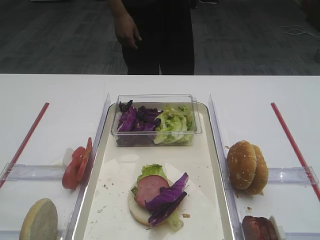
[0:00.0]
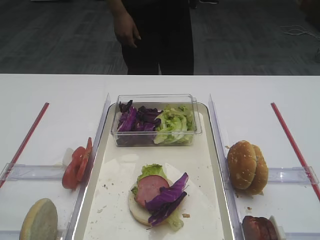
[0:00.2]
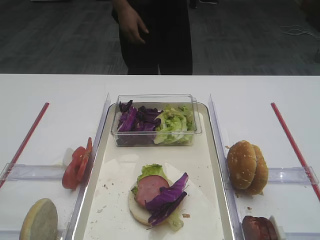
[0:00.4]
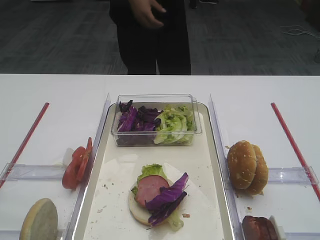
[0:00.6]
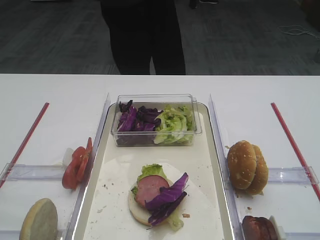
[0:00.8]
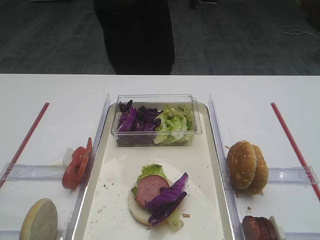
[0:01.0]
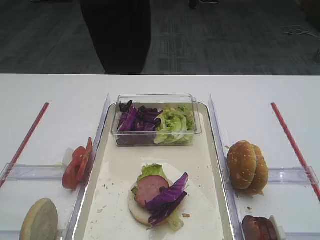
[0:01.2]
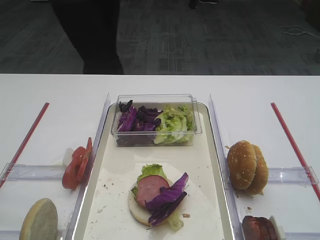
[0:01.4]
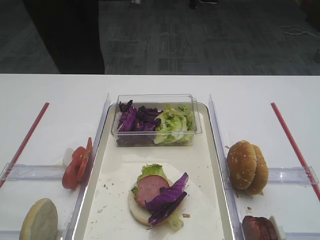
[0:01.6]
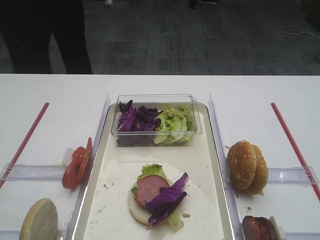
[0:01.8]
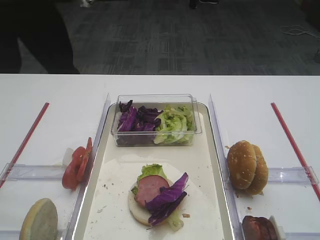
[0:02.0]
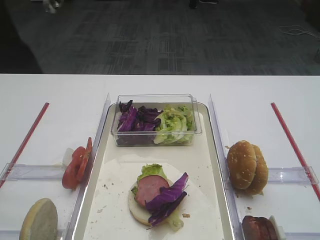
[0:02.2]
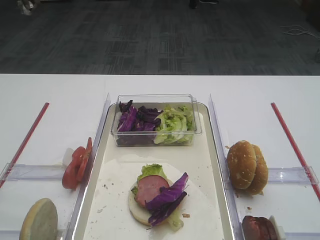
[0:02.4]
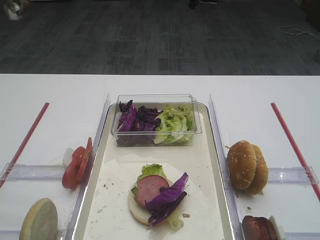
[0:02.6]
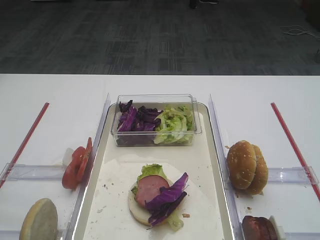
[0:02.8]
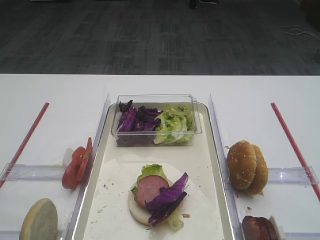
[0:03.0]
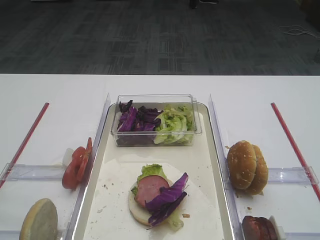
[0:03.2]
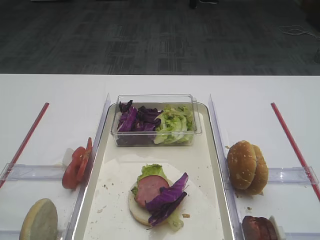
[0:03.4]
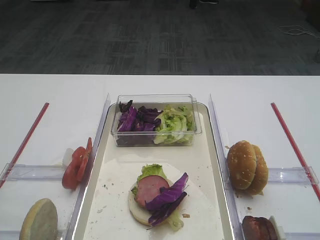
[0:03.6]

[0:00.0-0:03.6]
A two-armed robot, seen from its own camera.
0:00.0 to 0:03.6: Neither gripper changes place.

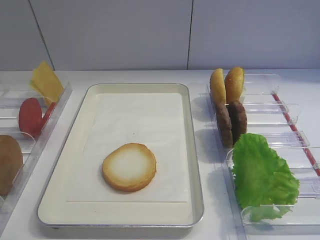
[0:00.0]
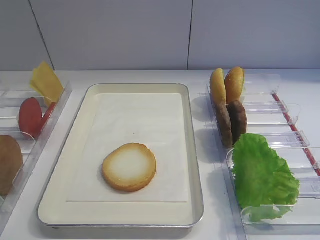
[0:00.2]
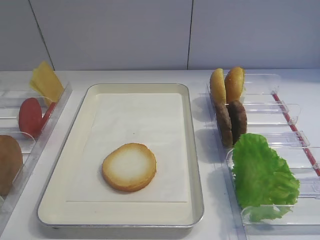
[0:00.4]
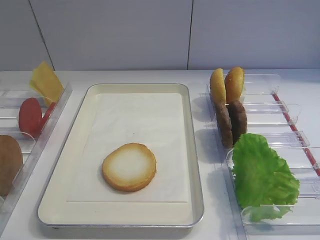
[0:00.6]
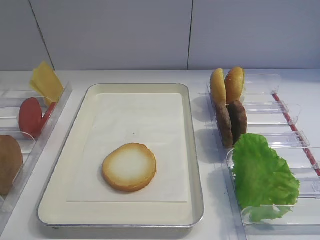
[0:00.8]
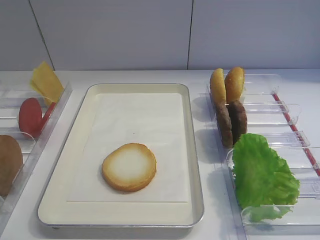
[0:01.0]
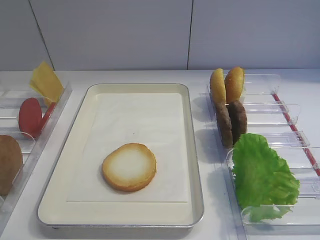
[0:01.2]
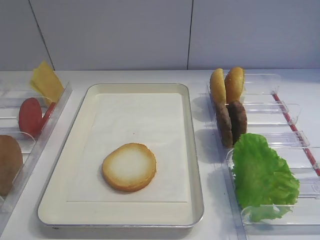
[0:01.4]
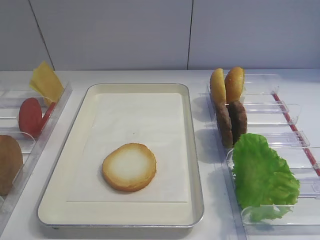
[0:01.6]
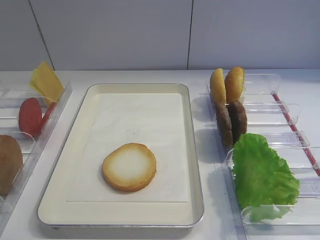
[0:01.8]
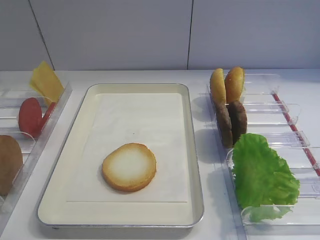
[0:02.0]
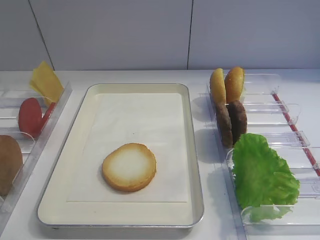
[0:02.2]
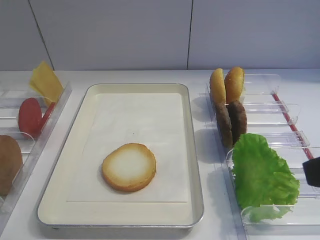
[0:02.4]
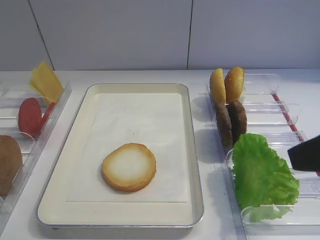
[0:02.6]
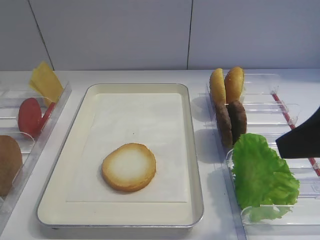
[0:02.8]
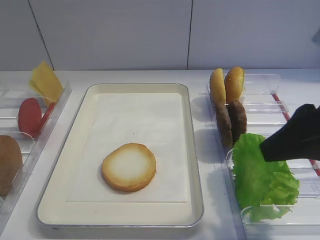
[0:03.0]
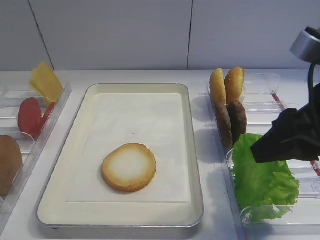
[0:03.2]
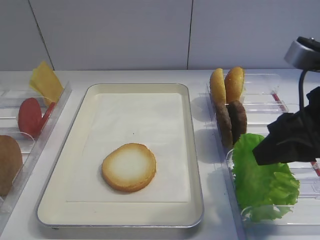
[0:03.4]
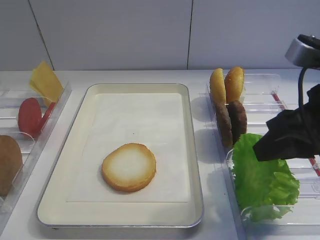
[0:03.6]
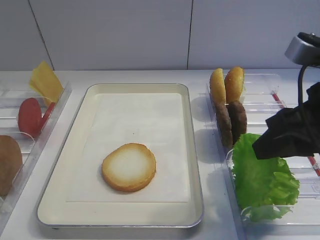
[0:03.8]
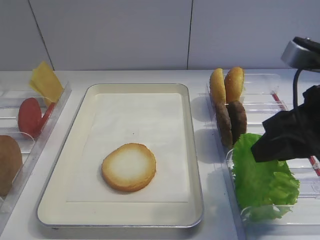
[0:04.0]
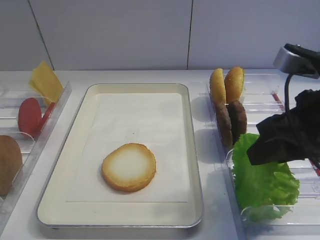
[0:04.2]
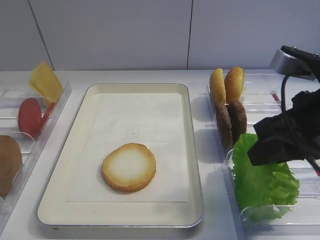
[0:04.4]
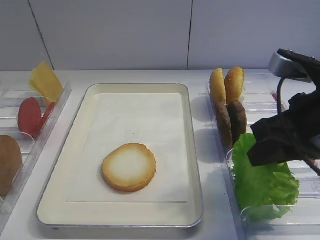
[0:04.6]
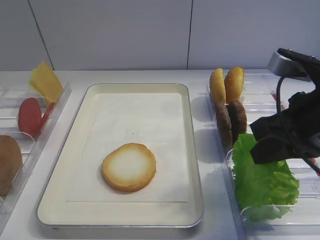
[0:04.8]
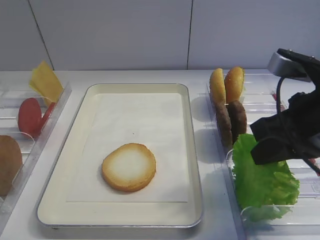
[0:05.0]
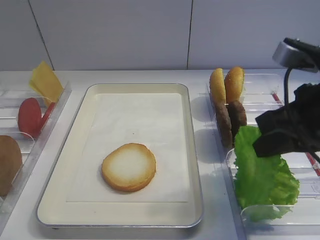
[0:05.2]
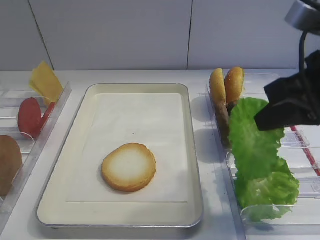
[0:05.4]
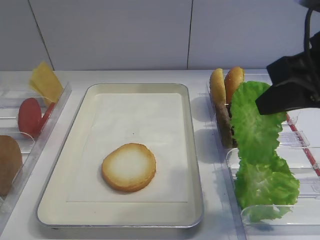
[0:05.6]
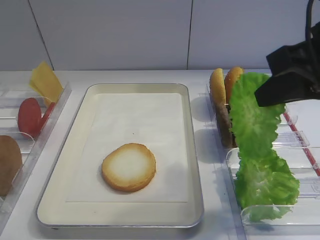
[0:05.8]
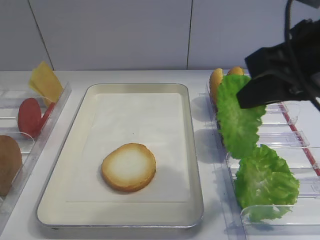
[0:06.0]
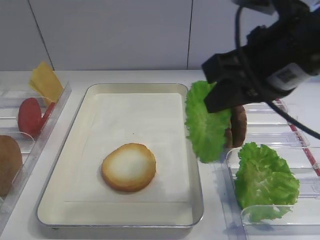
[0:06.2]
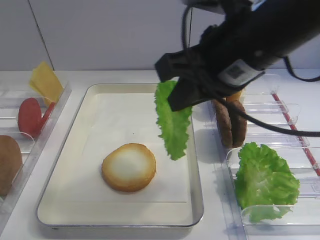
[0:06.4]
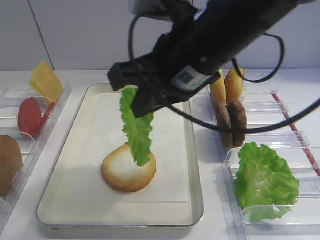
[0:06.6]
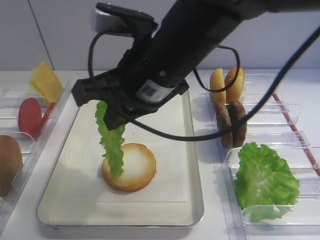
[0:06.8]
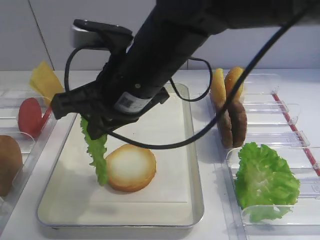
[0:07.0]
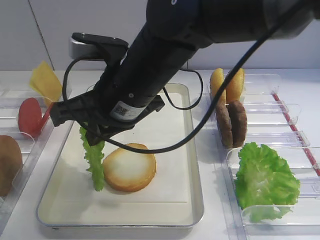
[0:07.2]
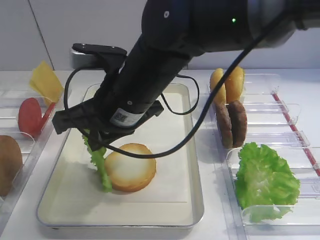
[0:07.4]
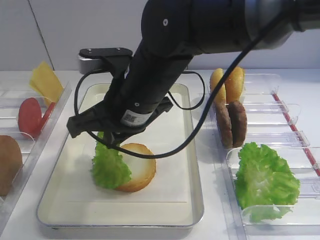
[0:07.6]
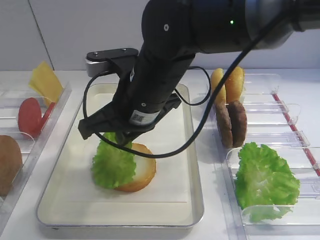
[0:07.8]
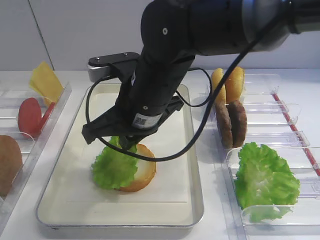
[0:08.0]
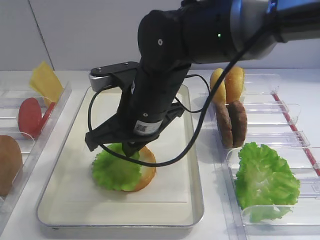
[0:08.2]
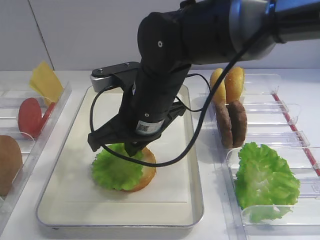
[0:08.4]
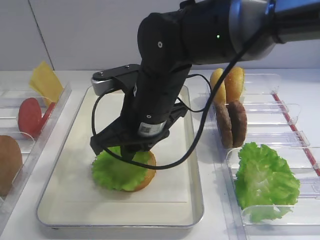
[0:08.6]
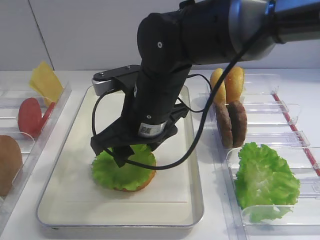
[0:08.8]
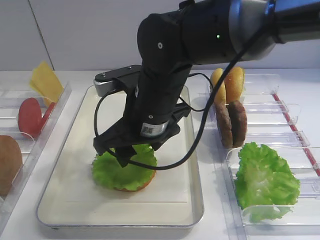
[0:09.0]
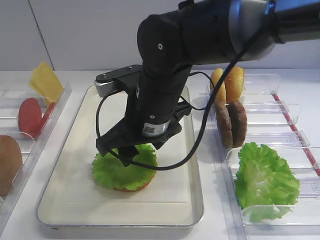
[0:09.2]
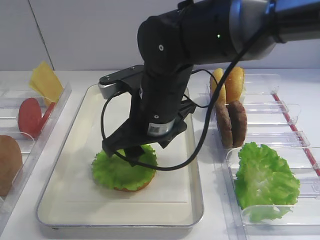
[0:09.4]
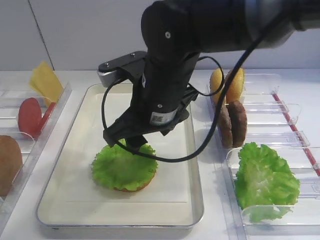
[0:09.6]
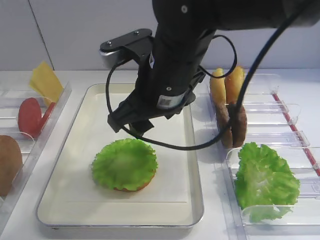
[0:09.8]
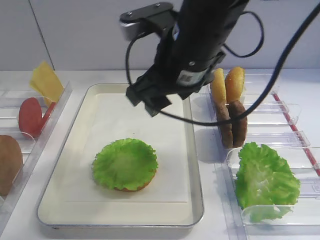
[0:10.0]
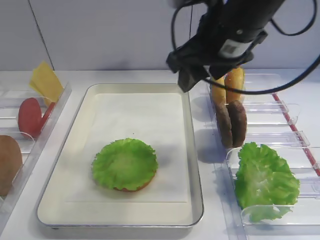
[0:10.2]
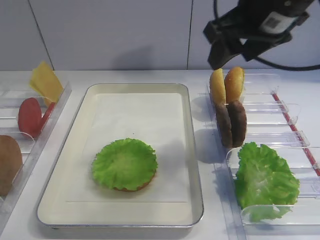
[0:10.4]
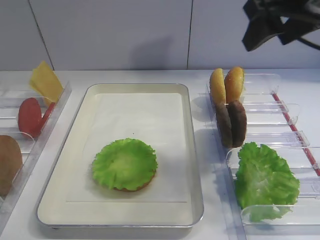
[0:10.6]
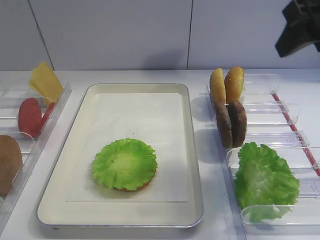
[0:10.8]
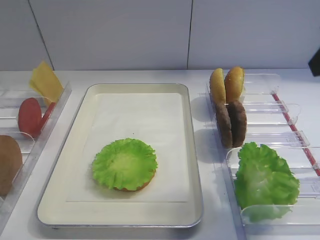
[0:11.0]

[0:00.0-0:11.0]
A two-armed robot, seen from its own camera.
Step, 0:00.0 to 0:05.4: Pick up the lettuce leaf with the right gripper.
Step, 0:05.6 to 0:09.4: Place the lettuce leaf on the bread slice with the right gripper.
0:01.6 to 0:03.2: The right gripper travels forward and to the left by approximately 20 cm, and closes up.
0:03.2 to 0:04.8: The right gripper closes its fingers.
0:04.8 to 0:06.2: The right gripper is displaced upward and to the left by some 10 cm.
0:06.2 to 0:07.8: The right gripper goes approximately 15 cm to the left and downward.
0:07.8 to 0:09.4: The right gripper opens its fingers.
0:09.4 to 0:11.0: The right gripper goes roughly 30 cm to the right and upward.

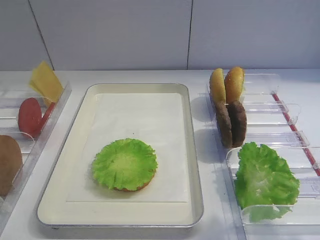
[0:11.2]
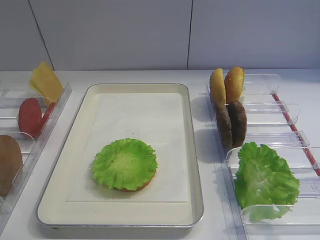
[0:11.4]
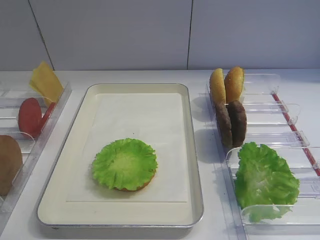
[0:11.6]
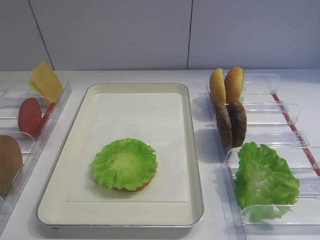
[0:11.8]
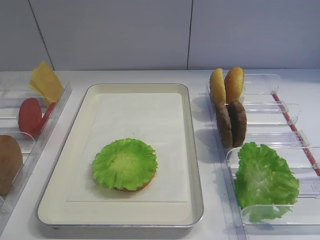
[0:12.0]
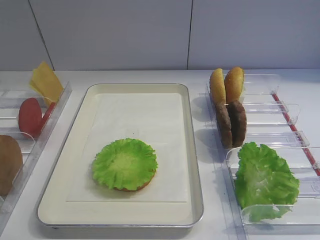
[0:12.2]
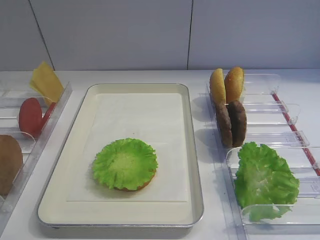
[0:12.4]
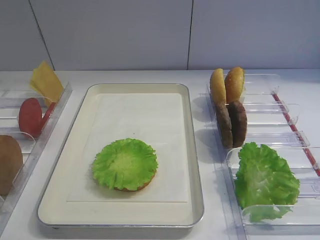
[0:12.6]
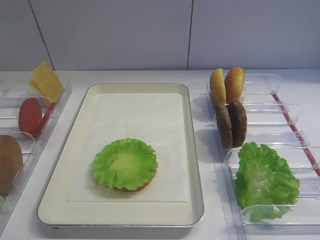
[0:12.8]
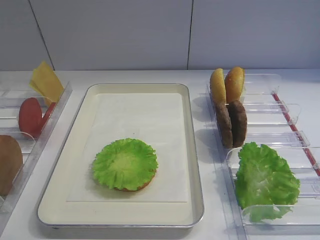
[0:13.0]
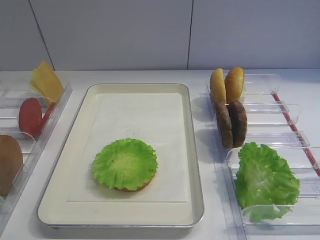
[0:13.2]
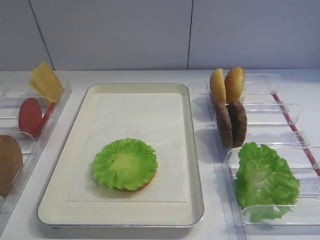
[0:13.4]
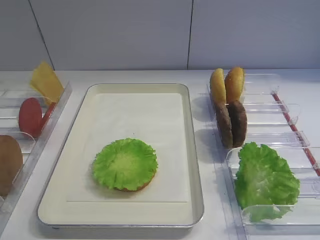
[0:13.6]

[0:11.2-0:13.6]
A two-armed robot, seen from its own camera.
0:11.2 to 0:12.4: The right gripper heads backward and downward, covering roughly 20 cm.
0:12.4 to 0:13.6: The two grippers keep their place.

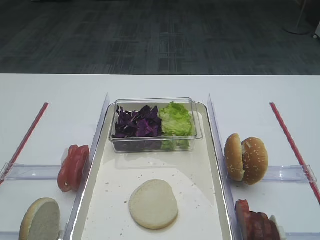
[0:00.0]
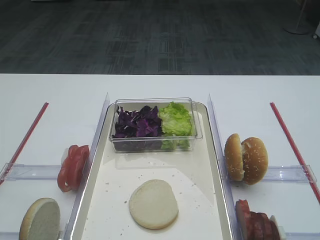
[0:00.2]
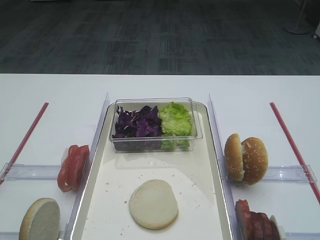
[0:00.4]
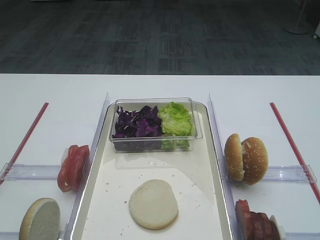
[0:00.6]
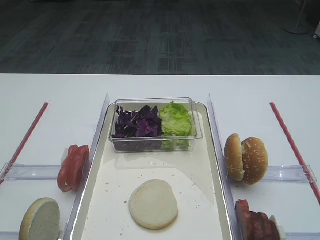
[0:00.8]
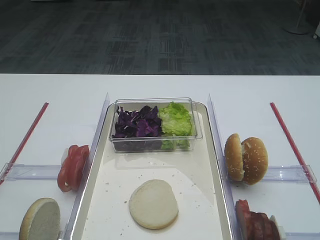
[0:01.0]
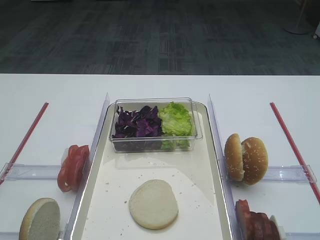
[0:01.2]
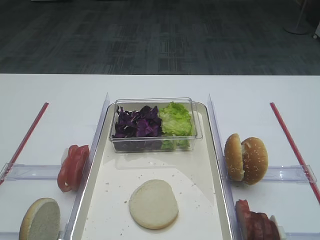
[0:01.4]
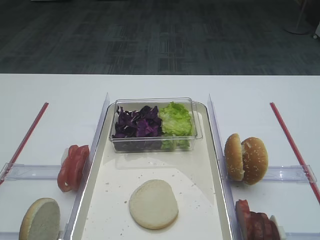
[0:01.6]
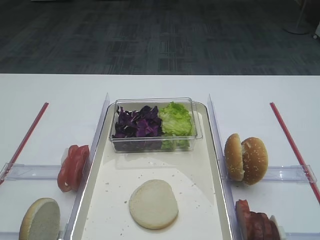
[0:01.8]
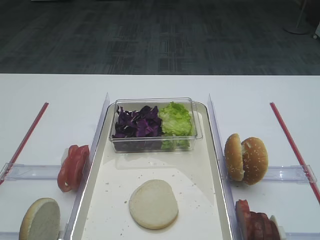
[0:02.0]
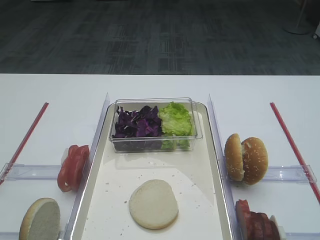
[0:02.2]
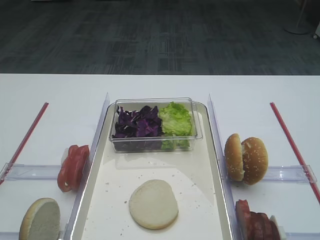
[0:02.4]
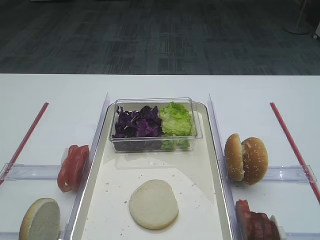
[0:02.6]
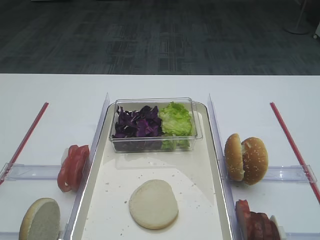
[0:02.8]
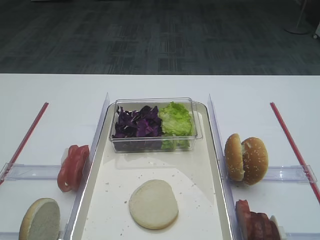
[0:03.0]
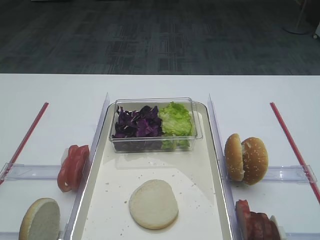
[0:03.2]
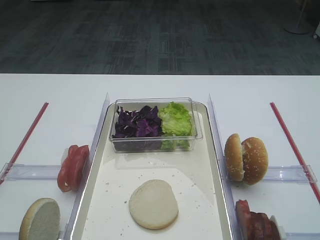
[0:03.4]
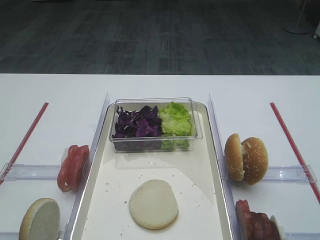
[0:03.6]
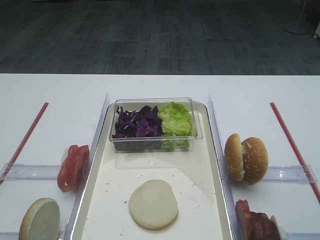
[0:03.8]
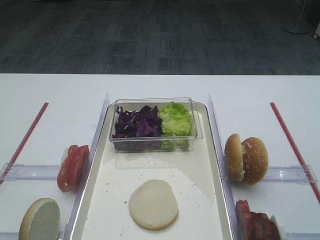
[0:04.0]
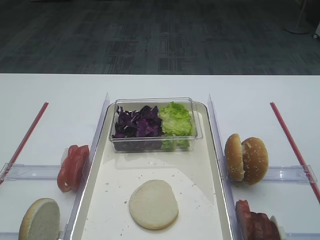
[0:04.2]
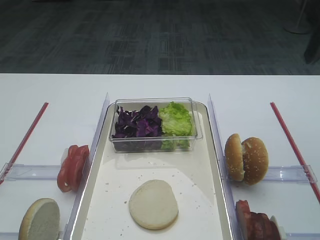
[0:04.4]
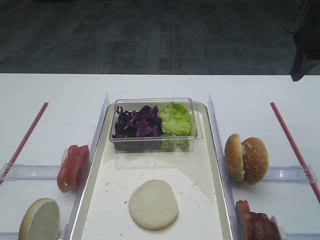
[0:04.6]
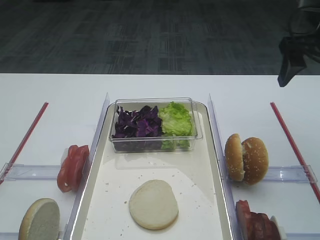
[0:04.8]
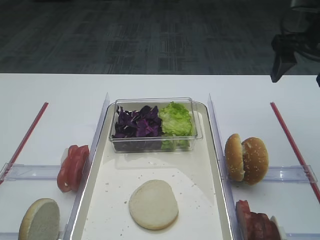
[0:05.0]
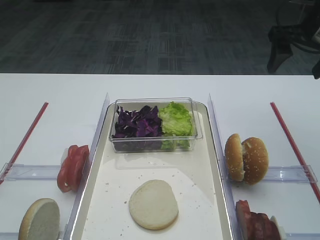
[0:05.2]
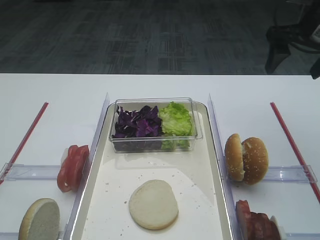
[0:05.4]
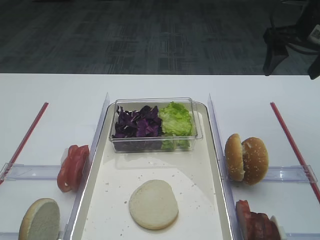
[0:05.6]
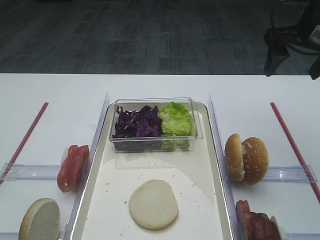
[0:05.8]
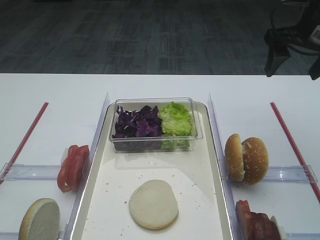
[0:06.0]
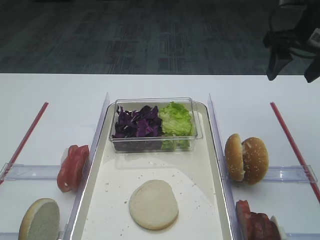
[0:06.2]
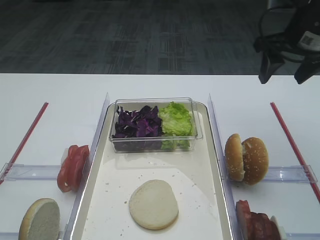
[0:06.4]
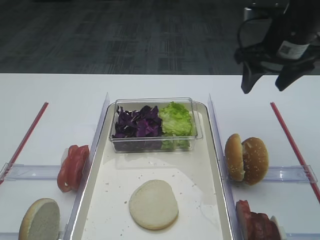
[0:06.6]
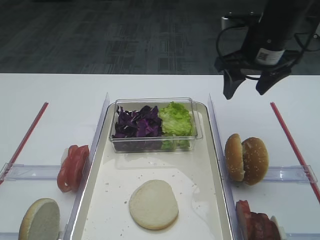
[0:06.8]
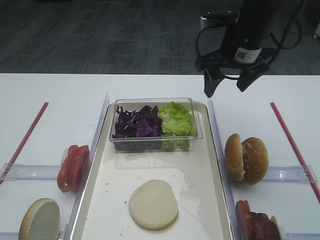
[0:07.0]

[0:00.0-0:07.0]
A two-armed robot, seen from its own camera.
0:01.4 to 0:02.8: Both grippers stay put.
0:04.2 to 0:05.6: The right gripper heads forward and downward, covering about 15 cm.
0:05.6 to 0:07.0: The right gripper travels to the left by some 10 cm.
